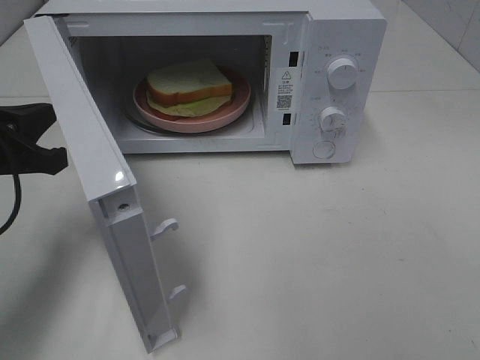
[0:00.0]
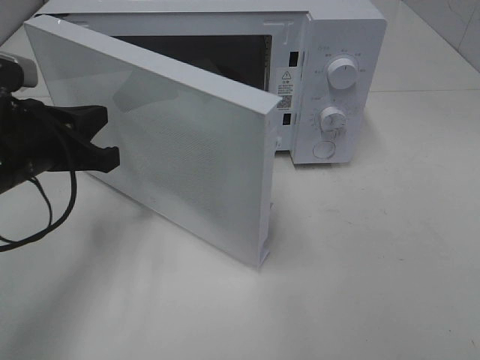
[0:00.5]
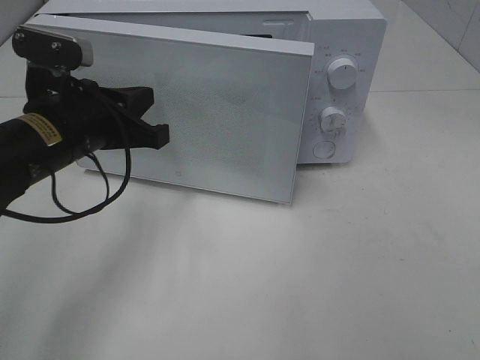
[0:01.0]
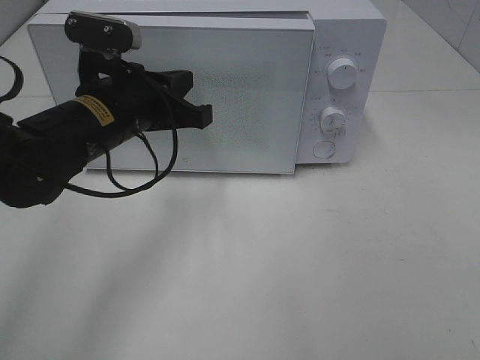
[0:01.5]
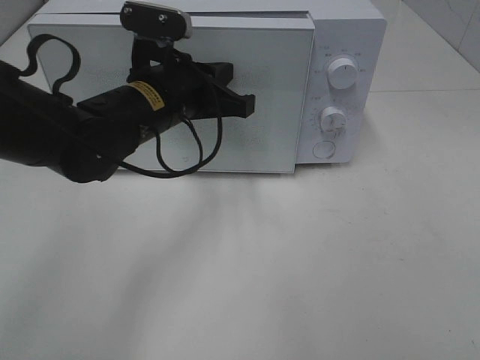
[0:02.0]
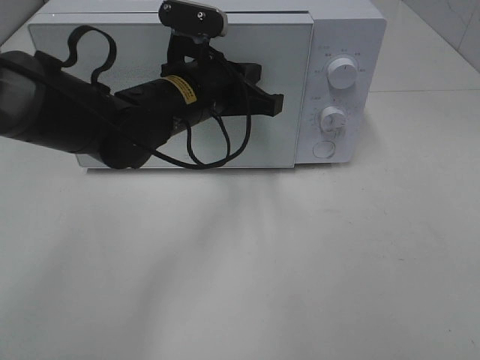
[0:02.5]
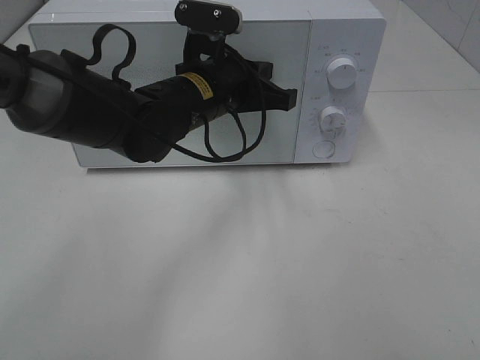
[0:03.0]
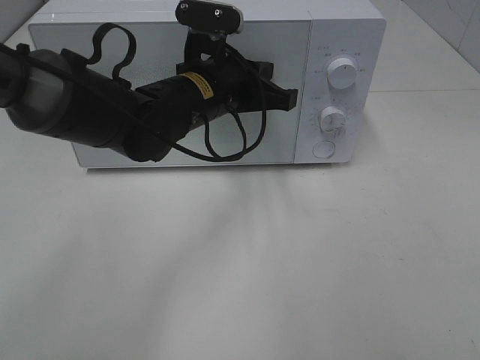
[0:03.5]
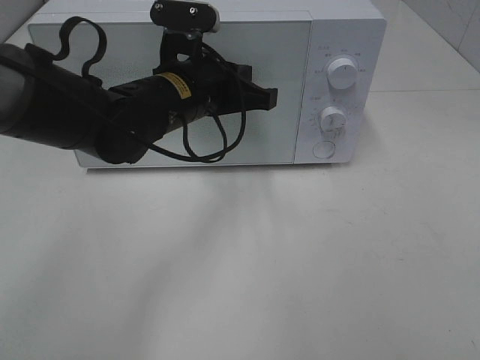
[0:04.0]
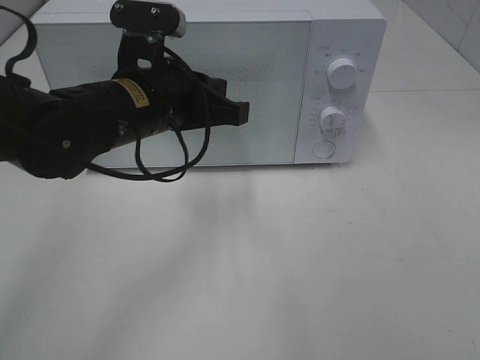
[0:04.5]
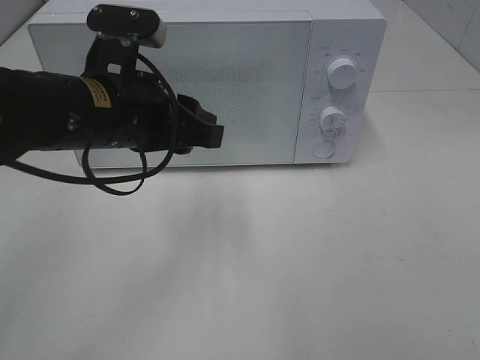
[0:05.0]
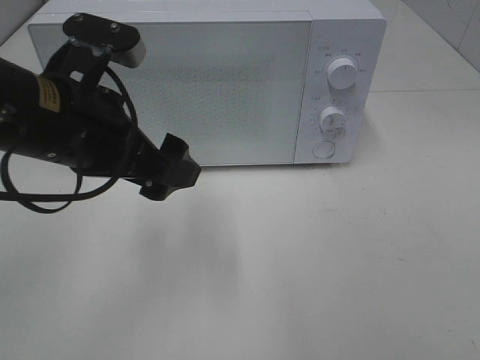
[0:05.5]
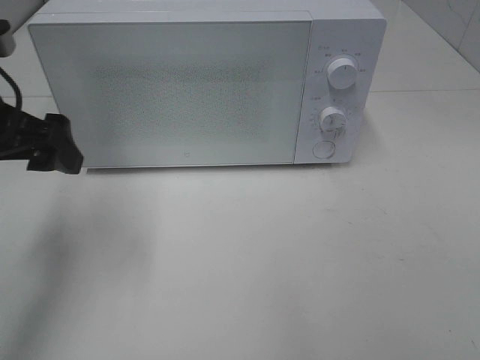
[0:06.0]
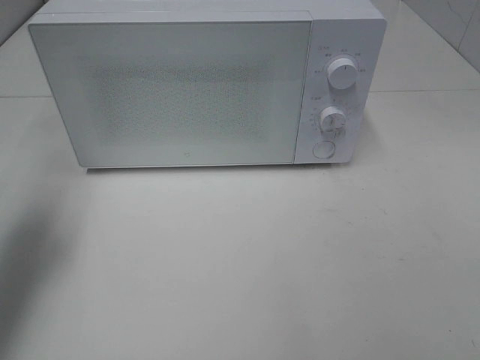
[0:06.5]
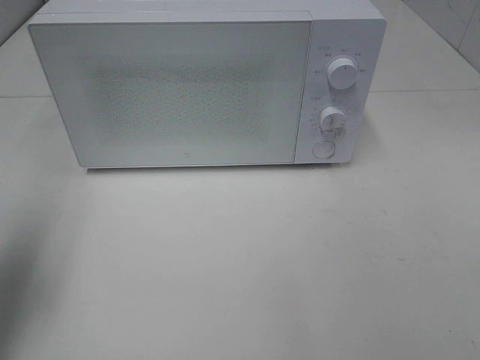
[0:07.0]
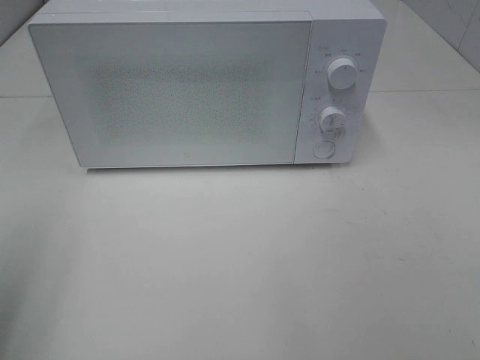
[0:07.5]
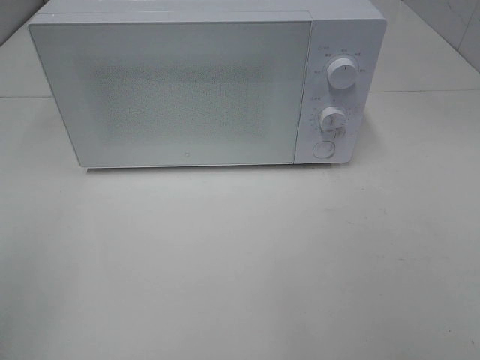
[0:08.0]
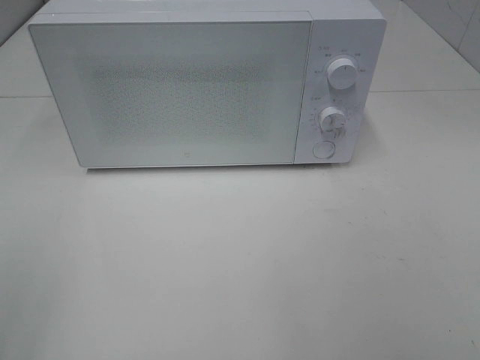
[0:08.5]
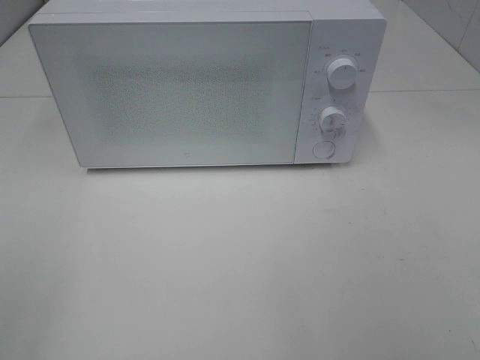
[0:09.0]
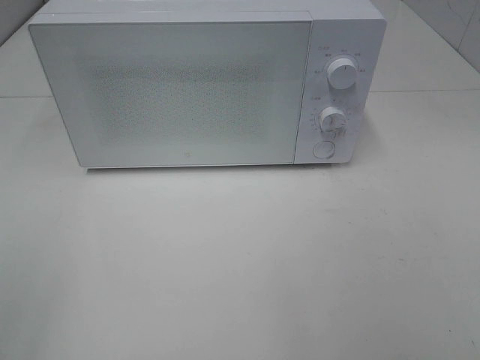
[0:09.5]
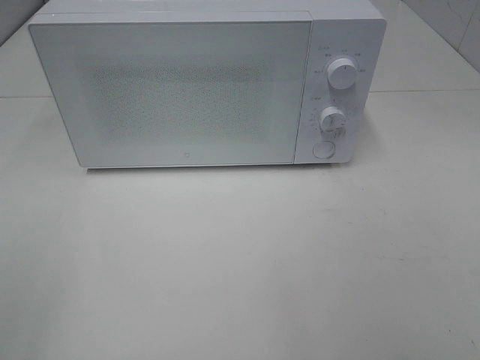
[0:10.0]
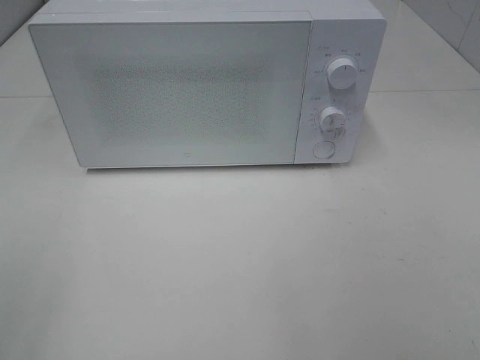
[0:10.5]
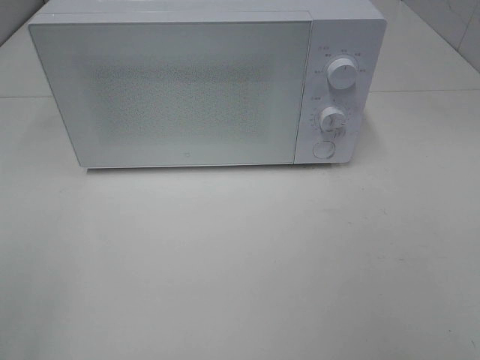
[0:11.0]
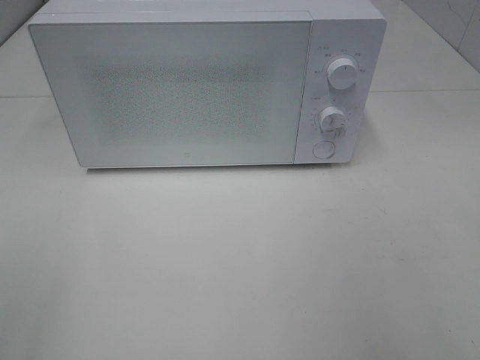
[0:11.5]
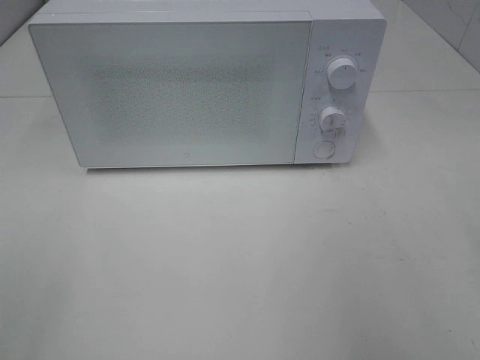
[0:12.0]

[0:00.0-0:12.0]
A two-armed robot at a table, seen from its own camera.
Task of the whole recording: Heat Sandwich.
Step, 0:00.0 to 0:04.0: Left hand: close the microwave door.
0:00.0 to 0:02.0: The left gripper is displaced to the right and forward by some 20 cm.
0:02.0 to 0:04.0: The grippers stay close to where they were, moving slightly.
0:04.0 to 0:06.0: The left gripper heads to the left and backward, covering some 20 cm, and opens its fingers.
0:06.0 to 0:08.0: The left gripper travels backward by approximately 25 cm.

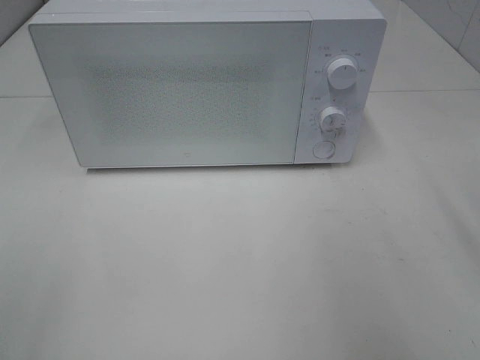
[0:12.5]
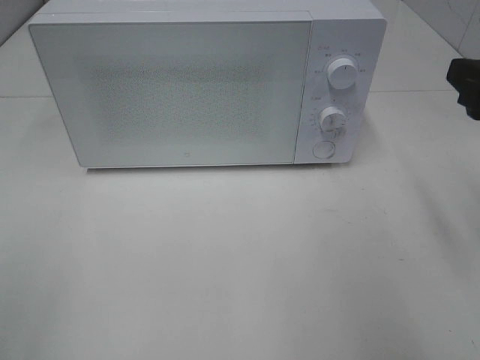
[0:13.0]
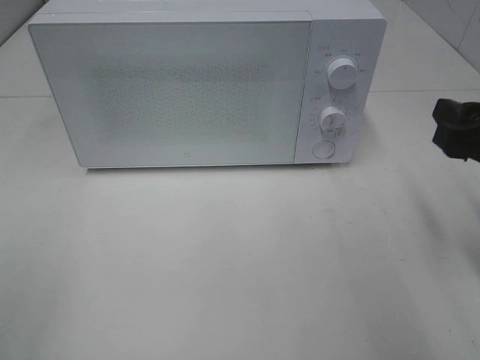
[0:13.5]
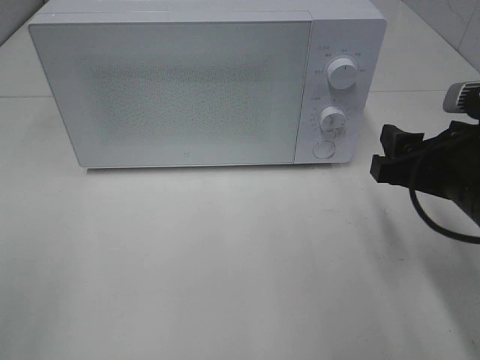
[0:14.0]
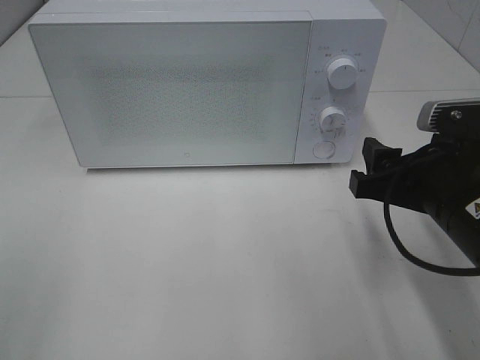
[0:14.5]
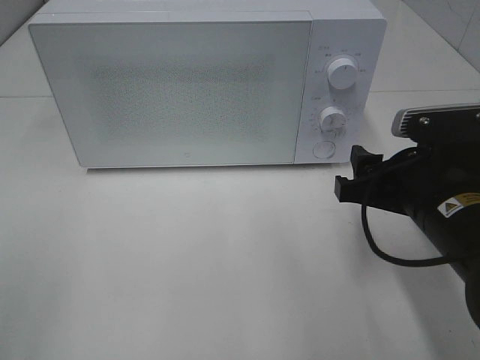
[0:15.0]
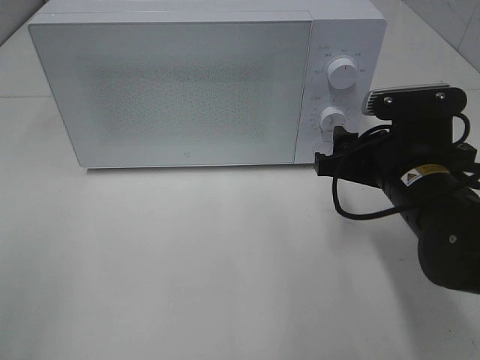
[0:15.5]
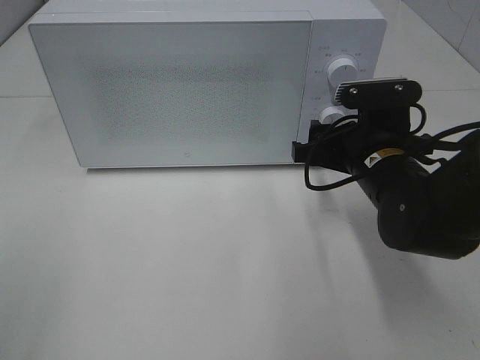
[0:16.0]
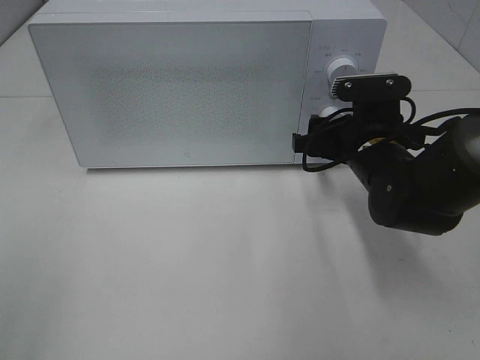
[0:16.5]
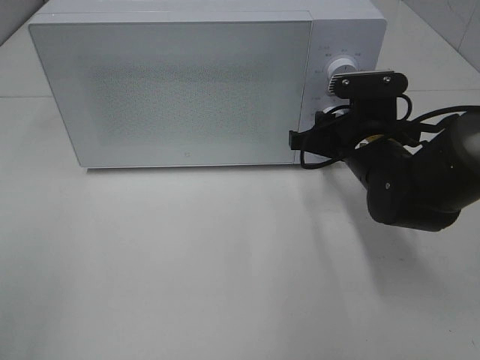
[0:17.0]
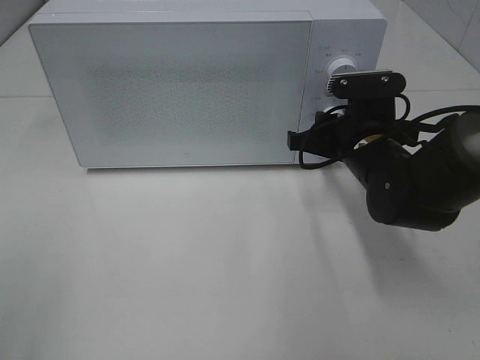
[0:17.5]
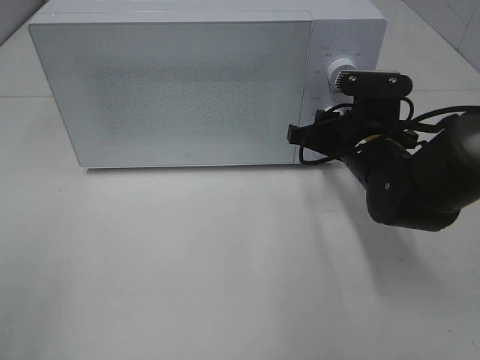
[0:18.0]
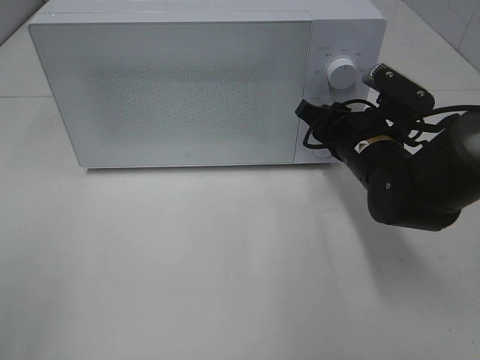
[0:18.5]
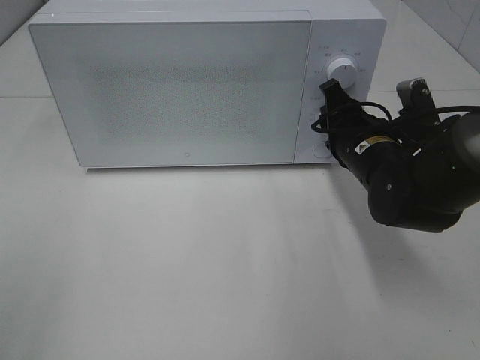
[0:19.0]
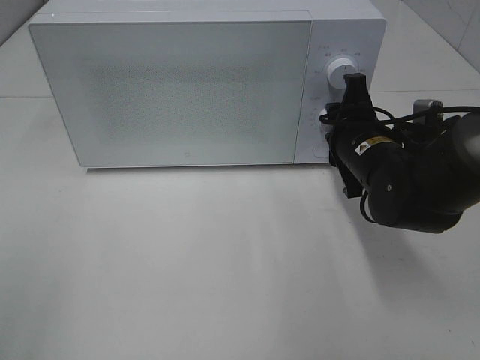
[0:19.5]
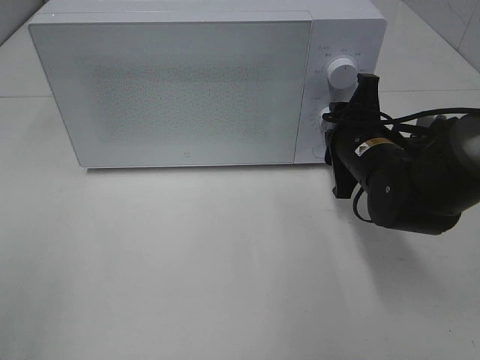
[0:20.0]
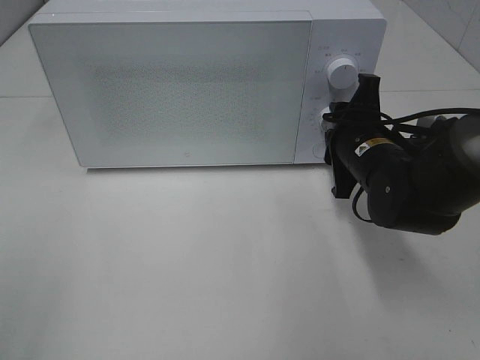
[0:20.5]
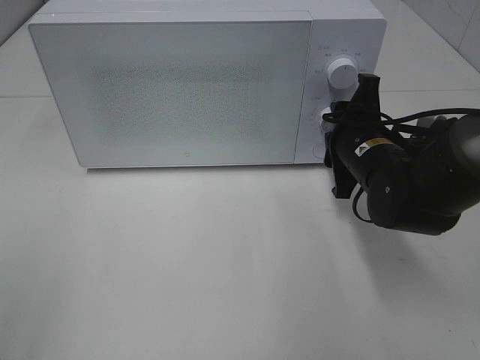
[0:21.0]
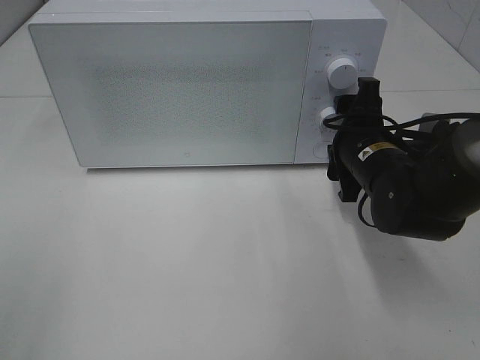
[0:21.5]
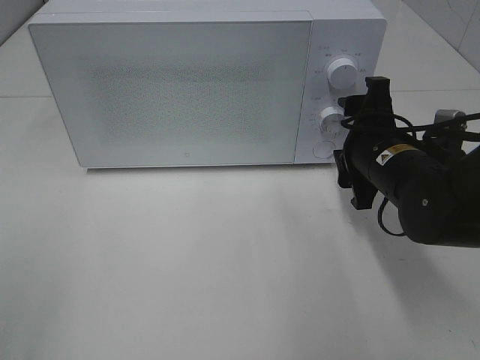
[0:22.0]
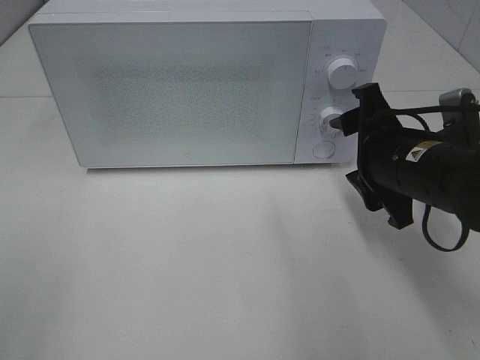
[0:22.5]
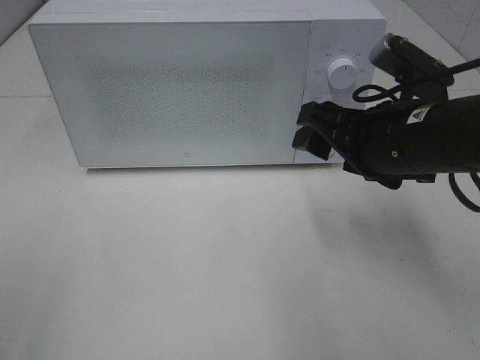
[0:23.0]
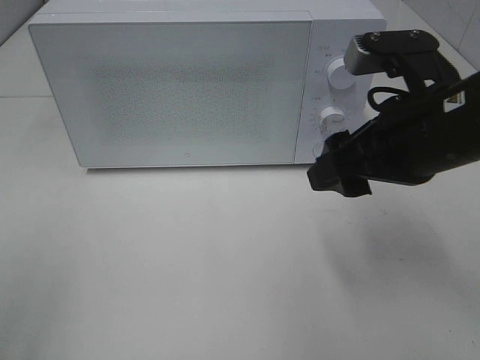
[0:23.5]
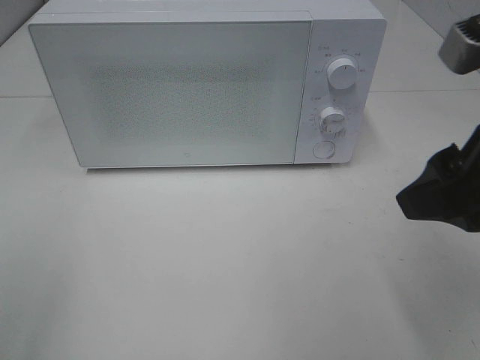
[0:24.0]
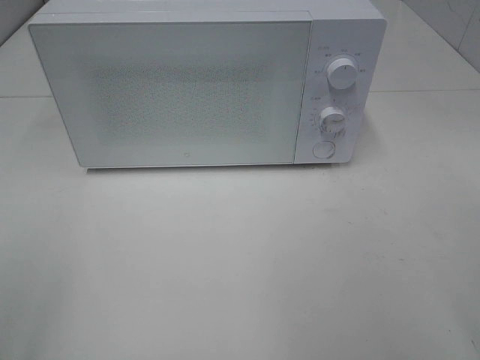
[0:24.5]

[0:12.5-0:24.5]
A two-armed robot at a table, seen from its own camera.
Task of the whole recording: Heat Sandwich.
Step, 0:12.5 to 0:21.5: Right hand: twist timer button.
0:12.5 to 0:14.5: The right gripper moves downward and to the left, approximately 15 cm.
0:14.5 to 0:16.5: The right gripper travels forward by about 15 cm.
0:16.5 to 0:18.5: The right gripper closes.
0:20.5 to 0:22.5: The right gripper moves backward, about 5 cm.
0:22.5 to 0:24.5: The right gripper is displaced backward, upward and to the right by about 25 cm.

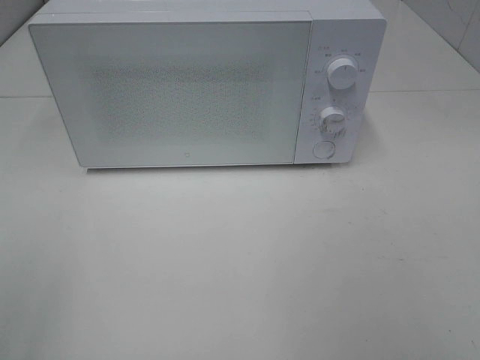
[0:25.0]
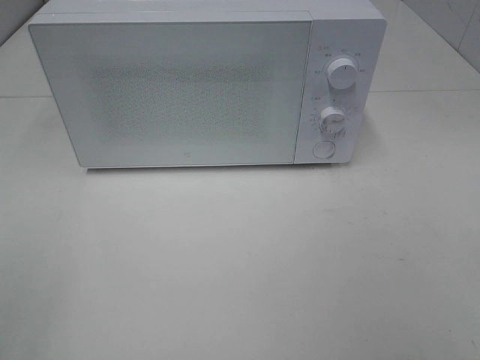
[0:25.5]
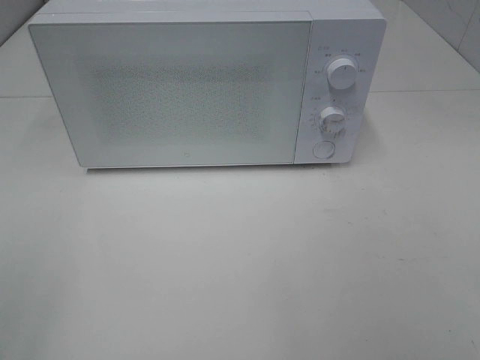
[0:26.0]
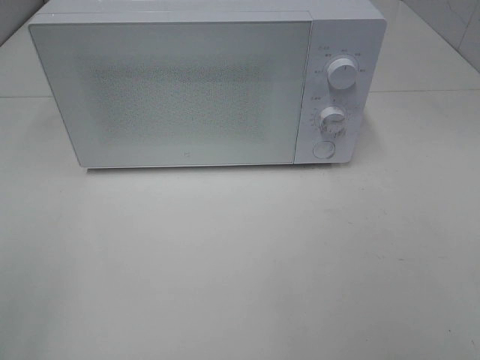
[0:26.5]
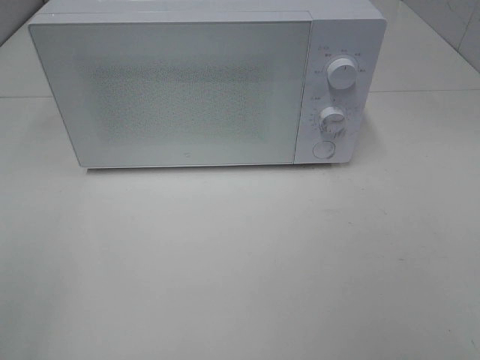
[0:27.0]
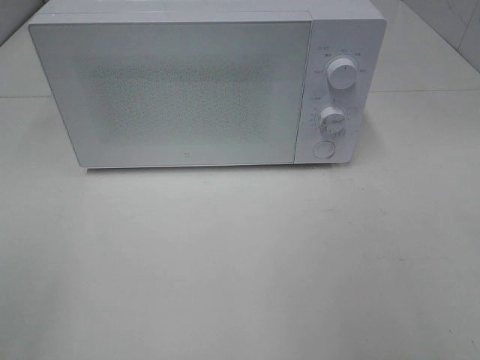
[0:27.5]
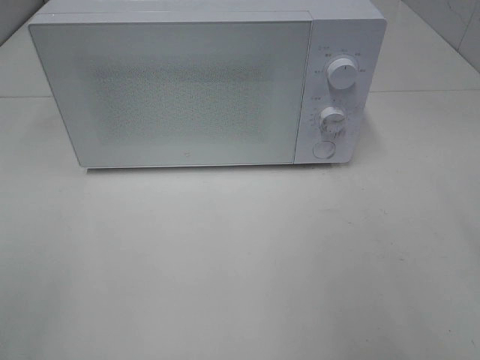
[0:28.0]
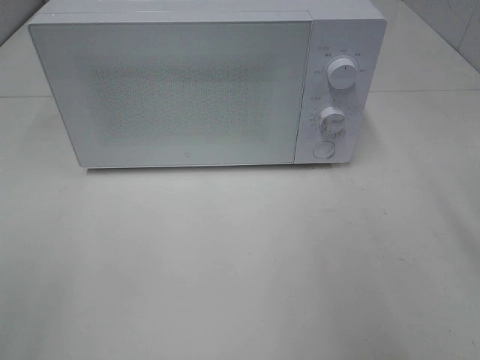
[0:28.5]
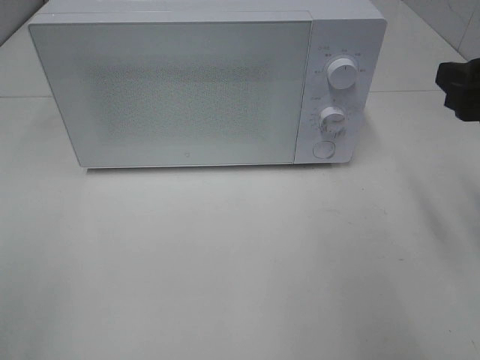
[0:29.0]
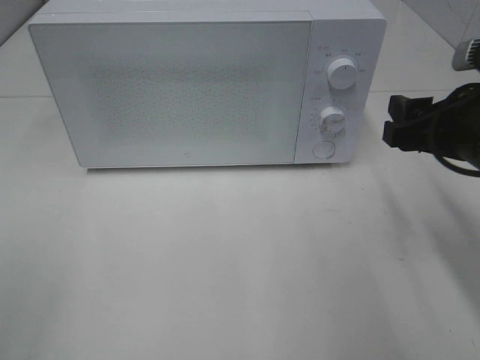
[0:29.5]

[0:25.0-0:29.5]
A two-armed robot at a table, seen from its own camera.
Task of the whole recording: Heat Sandwich.
0:27.0 to 0:29.5: The right gripper heads forward and downward, covering about 25 cm.
